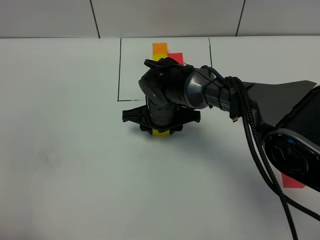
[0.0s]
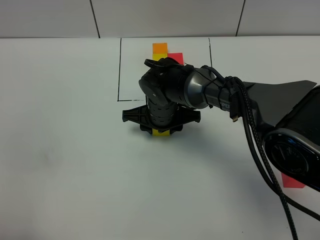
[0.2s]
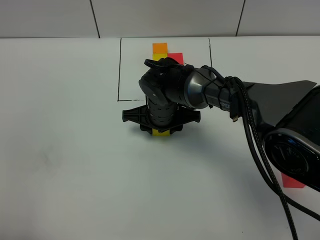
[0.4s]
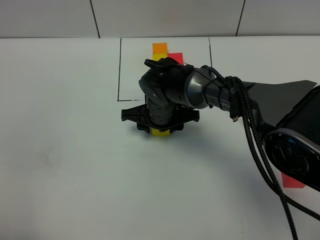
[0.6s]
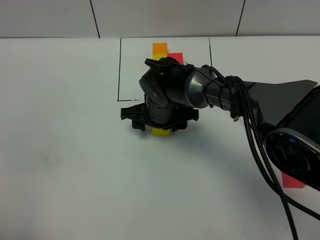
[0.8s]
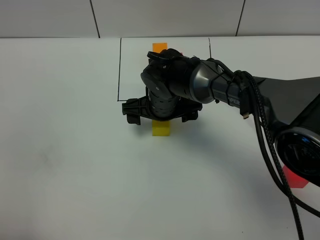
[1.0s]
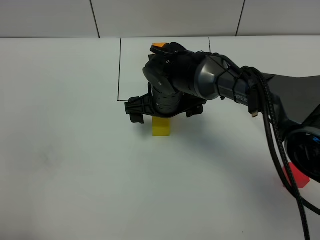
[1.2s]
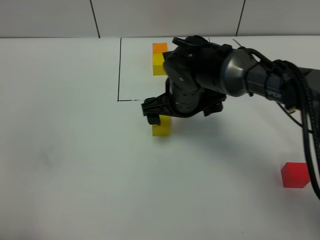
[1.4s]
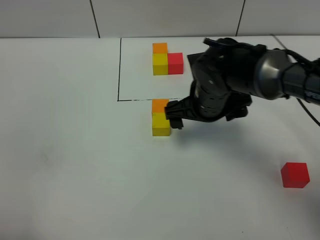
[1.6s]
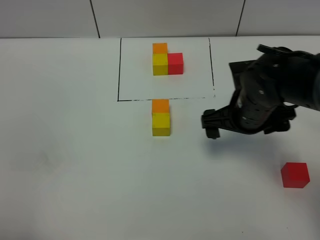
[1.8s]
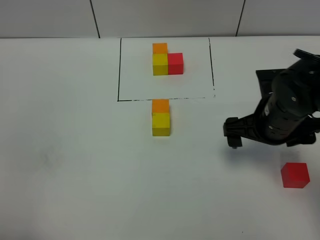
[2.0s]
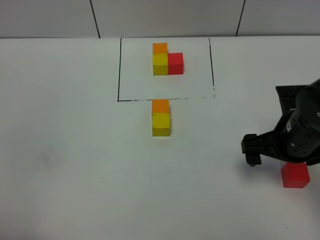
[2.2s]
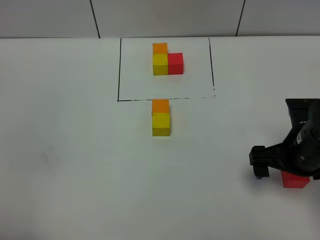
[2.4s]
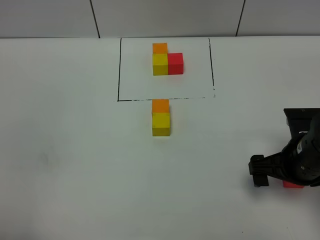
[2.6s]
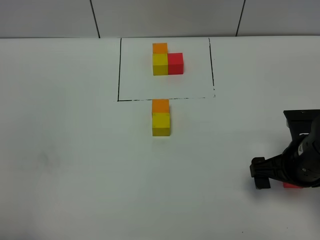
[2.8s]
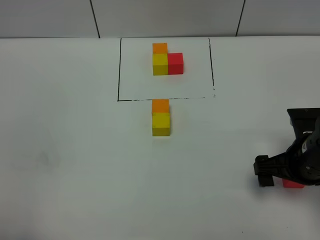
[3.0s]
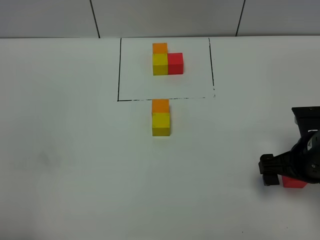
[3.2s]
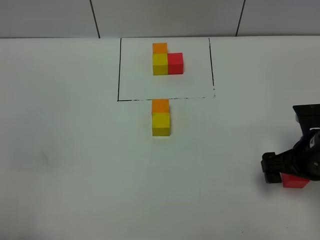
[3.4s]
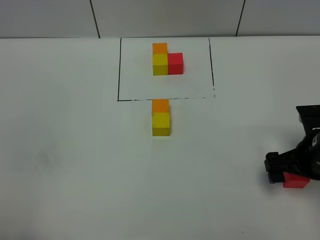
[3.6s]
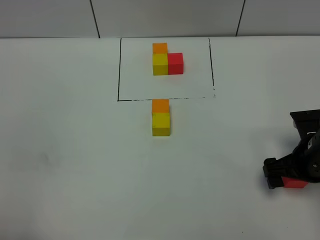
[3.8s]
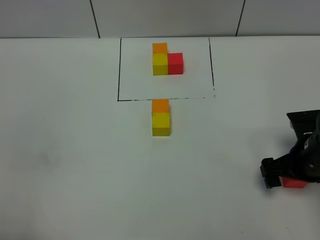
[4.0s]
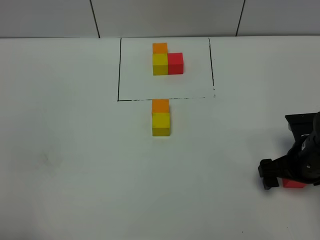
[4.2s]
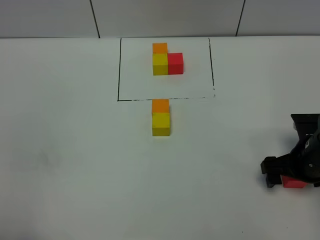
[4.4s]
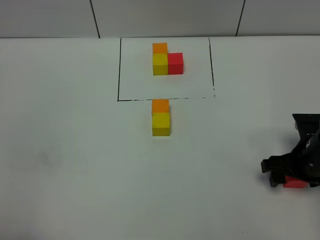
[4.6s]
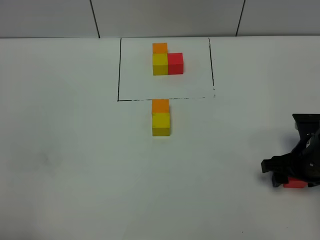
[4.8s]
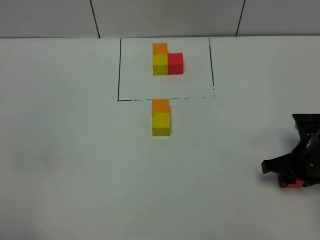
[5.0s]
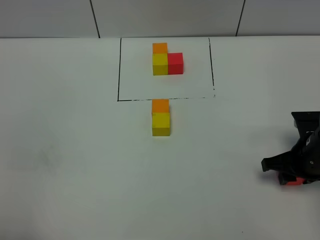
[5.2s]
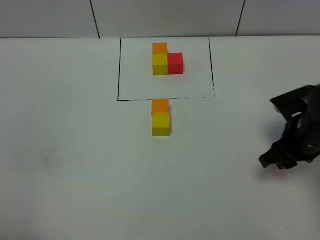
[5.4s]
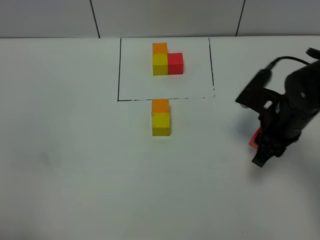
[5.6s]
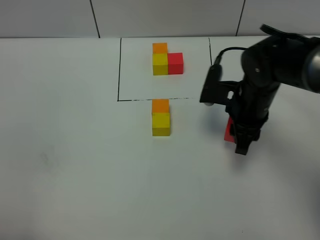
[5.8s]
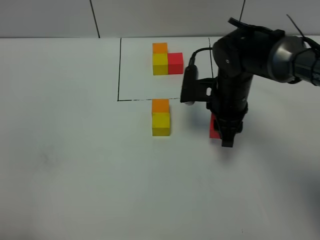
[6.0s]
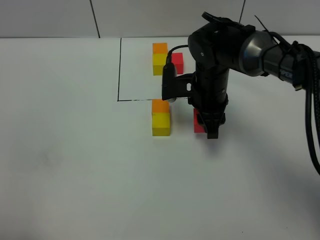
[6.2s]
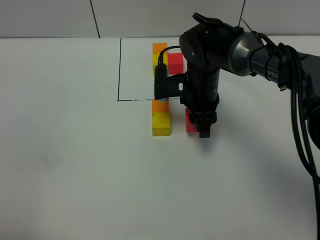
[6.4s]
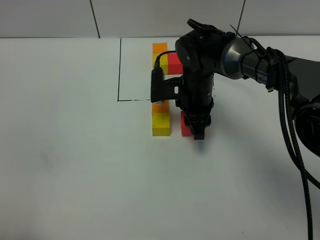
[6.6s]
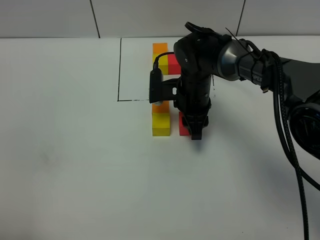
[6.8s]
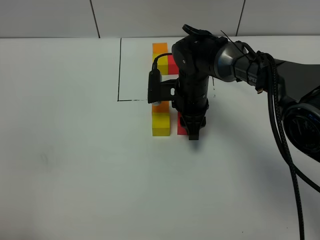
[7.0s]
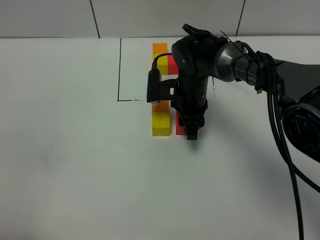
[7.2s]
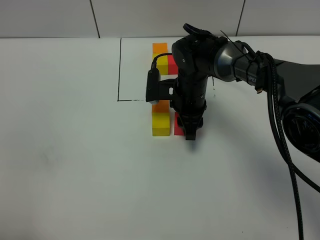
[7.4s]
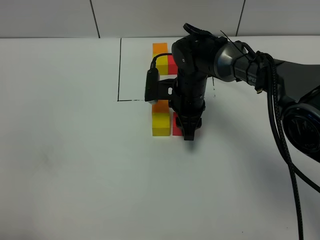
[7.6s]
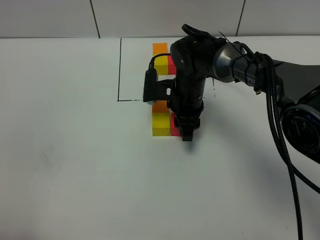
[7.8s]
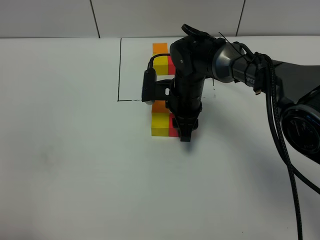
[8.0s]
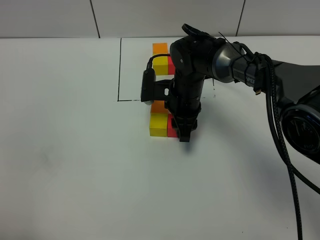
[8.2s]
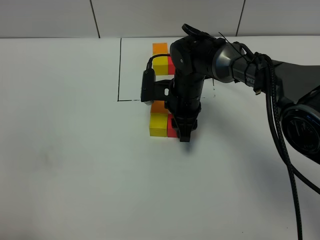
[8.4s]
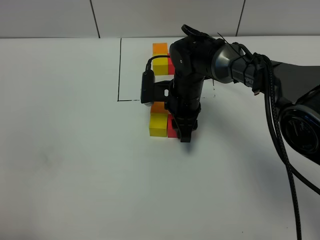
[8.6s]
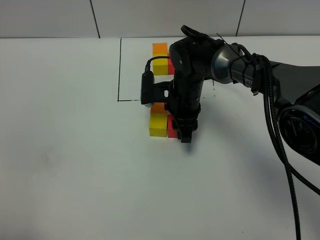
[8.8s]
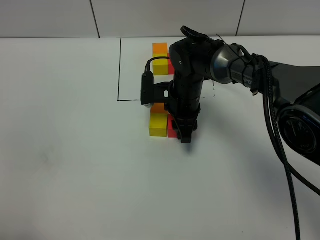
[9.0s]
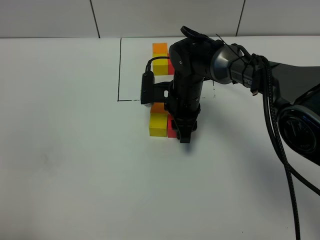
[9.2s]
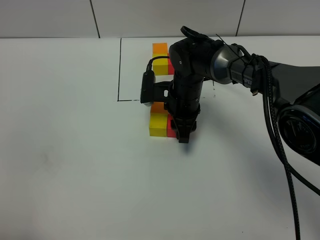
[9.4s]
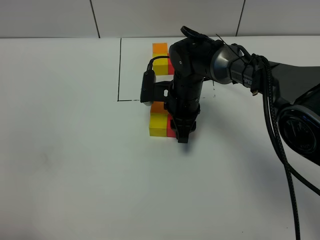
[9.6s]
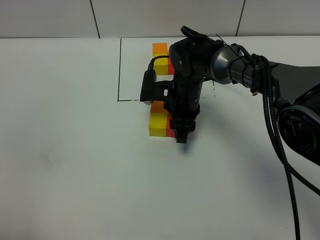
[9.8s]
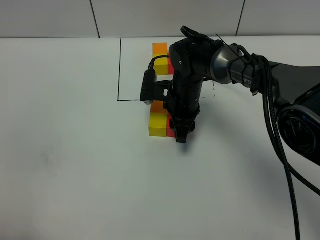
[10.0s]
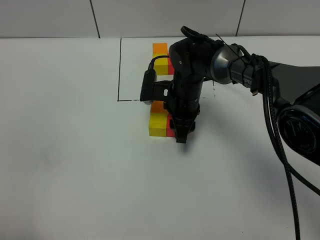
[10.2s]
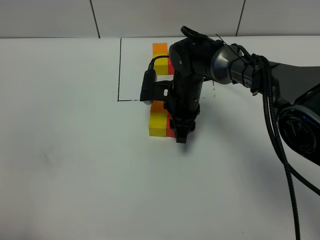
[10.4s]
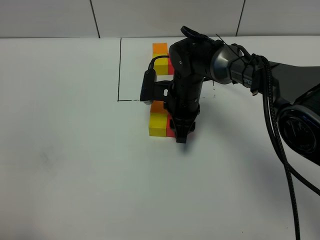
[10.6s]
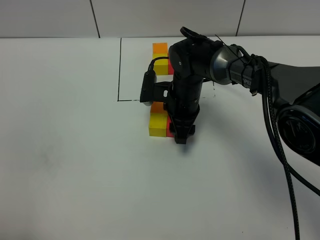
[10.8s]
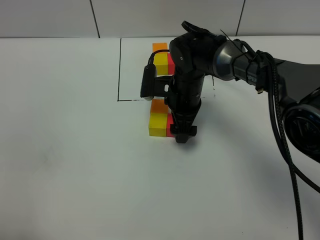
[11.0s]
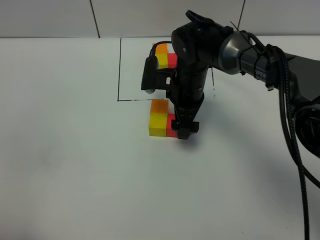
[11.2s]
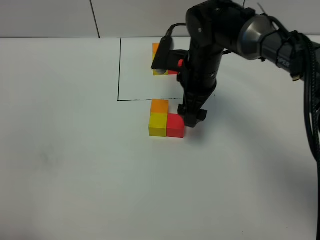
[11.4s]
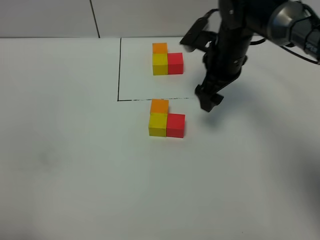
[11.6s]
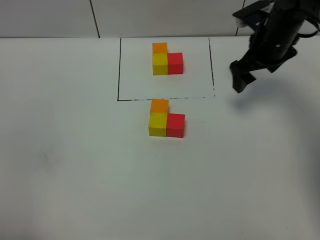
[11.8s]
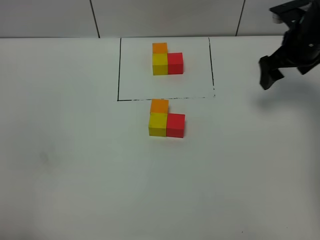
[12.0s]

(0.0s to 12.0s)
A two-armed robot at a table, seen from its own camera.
Task of the whole recording: According to the building block template in front, assemble the scattered blocks together.
Step, 0.8s - 11.0s: Put the red build block on the right of the yellow build block.
0.0s - 1.6s: The right gripper goes approximately 10 cm to the right and upward, and opens its fingers.
1.6s - 3.0s: The right gripper heads to the right and backward, covering approximately 20 cm.
3.0s - 4.4s: The right gripper shifts by roughly 5 cm.
4.4s - 6.0s: The right gripper shifts roughly 20 cm to the left and forward, and closes up.
6.0s - 7.6s: The right gripper goes about 5 cm to the left.
7.6s - 9.0s: The two grippers keep their place.
9.0s - 10.4s: There are only small adjustments of the grippers.
10.4s - 12.0s: The right gripper shifts roughly 25 cm to the right and upward, and opens.

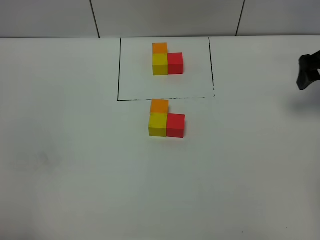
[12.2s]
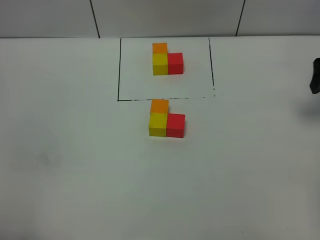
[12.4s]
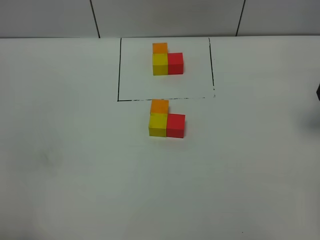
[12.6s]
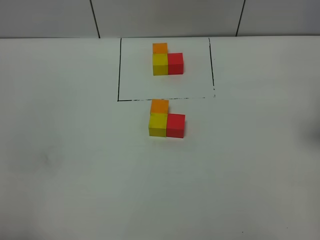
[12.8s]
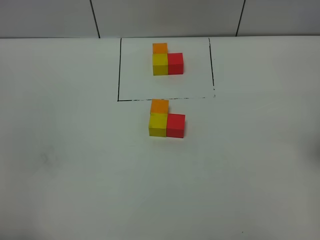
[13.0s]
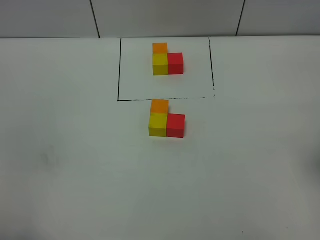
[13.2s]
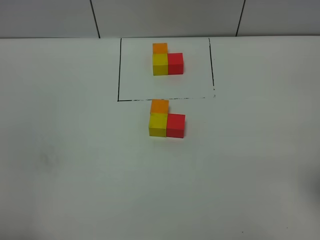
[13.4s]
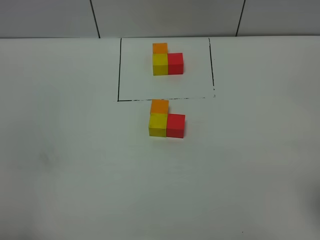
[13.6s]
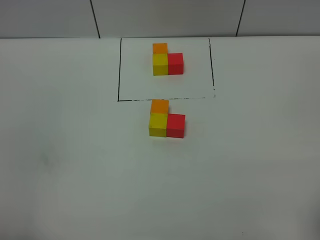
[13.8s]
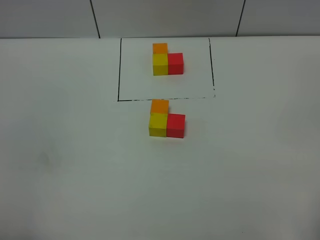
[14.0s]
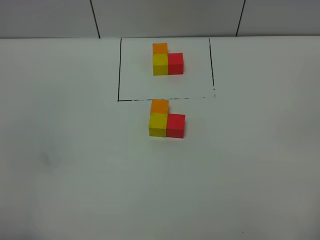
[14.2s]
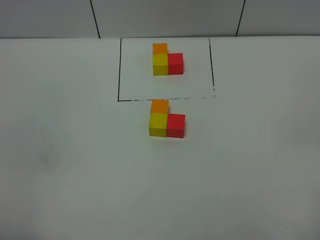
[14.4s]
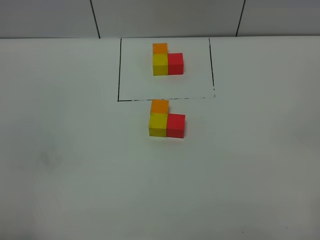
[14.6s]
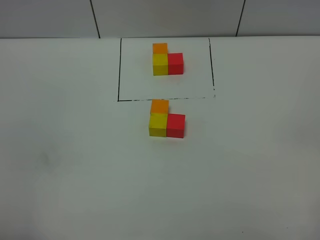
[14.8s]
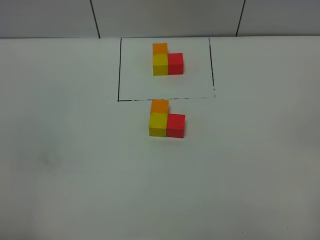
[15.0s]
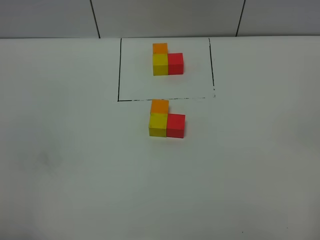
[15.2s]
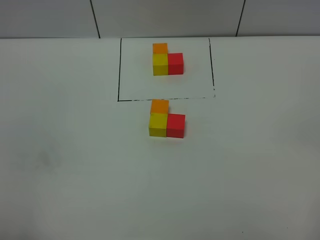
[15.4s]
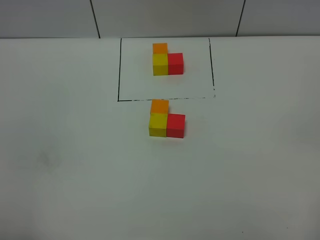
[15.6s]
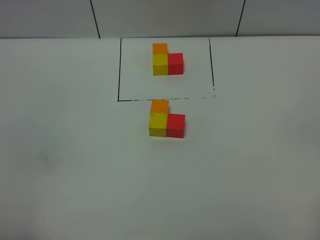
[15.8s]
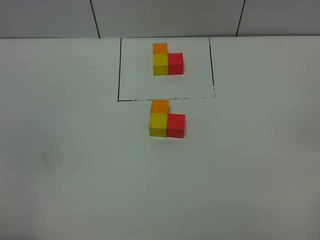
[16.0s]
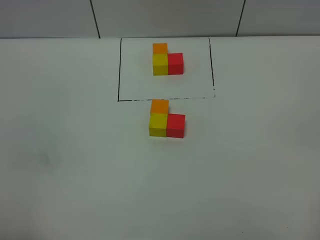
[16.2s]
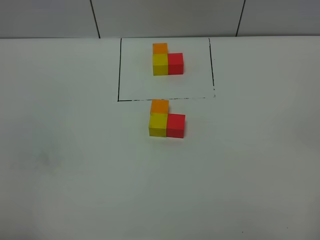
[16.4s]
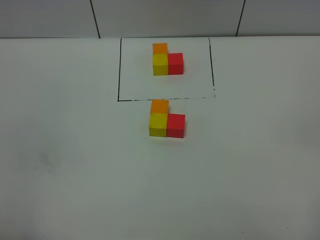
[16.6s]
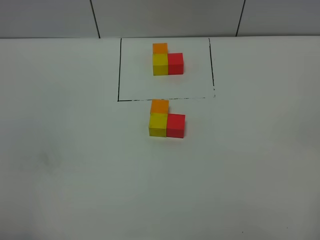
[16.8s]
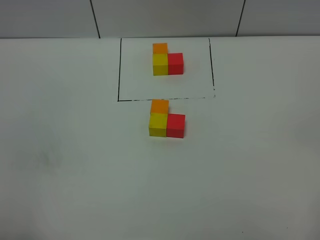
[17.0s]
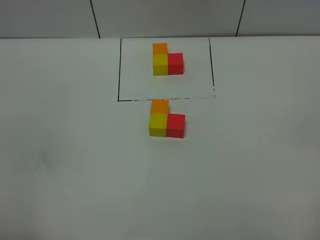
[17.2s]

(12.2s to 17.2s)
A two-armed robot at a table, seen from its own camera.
Task of the whole recording: According to the building block template in front, assemble the scattered blocks together.
12.2s - 13.8s: The right gripper heads backward, covering some 30 cm.
15.6s - 17.2s: Both grippers stay put.
